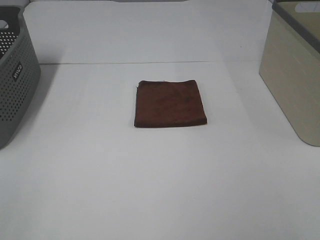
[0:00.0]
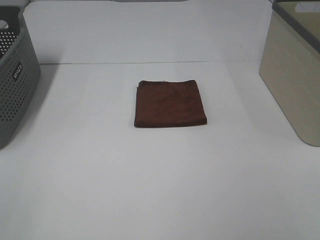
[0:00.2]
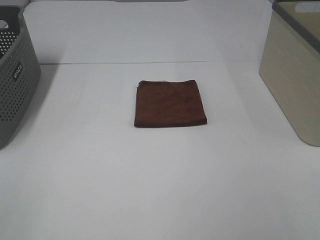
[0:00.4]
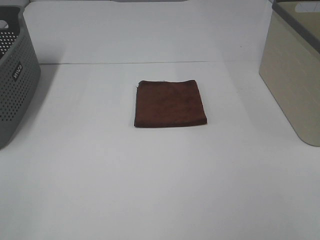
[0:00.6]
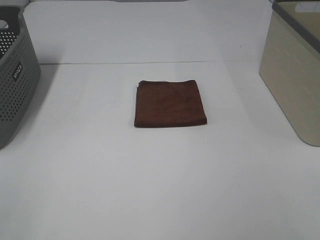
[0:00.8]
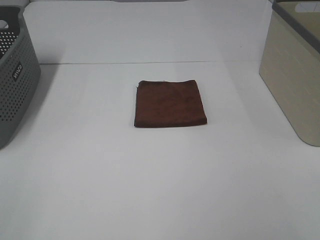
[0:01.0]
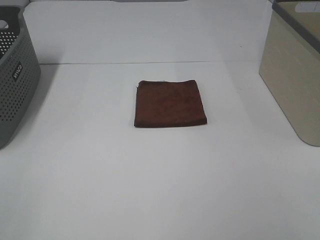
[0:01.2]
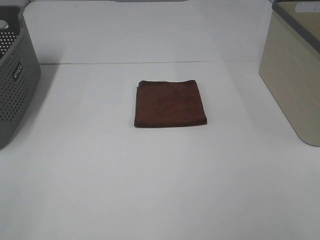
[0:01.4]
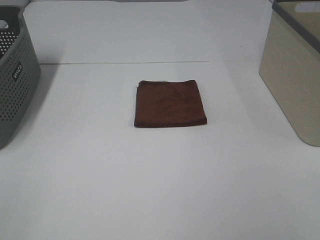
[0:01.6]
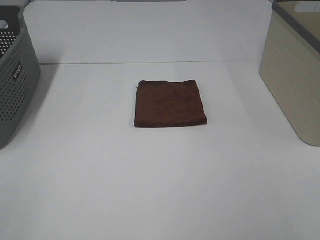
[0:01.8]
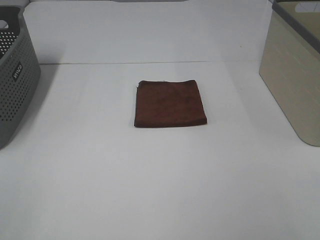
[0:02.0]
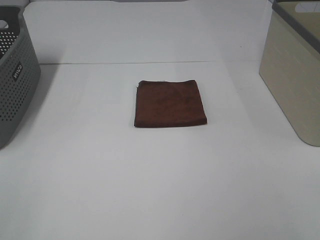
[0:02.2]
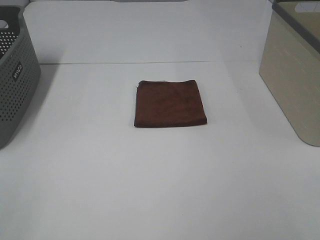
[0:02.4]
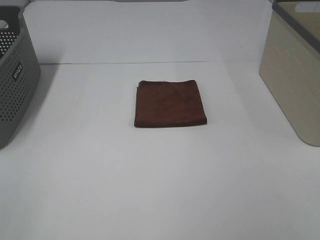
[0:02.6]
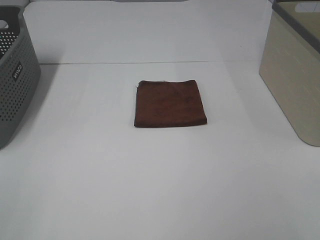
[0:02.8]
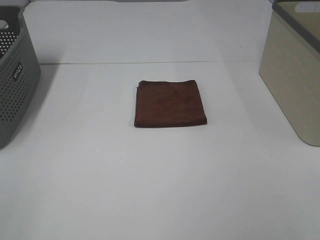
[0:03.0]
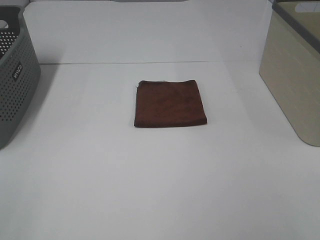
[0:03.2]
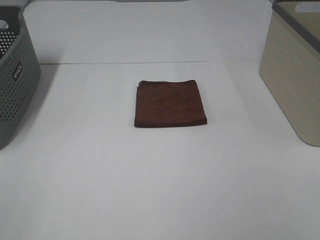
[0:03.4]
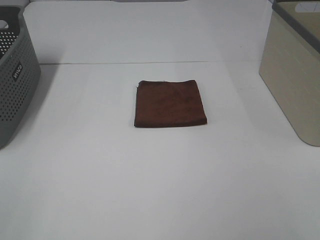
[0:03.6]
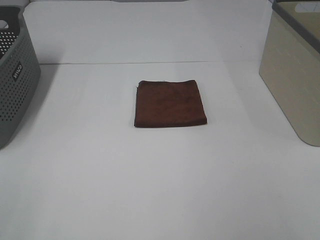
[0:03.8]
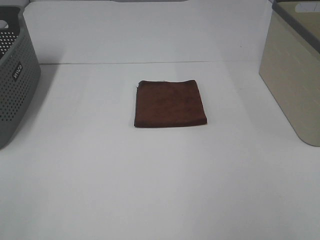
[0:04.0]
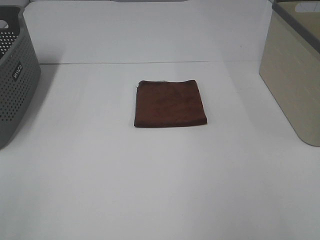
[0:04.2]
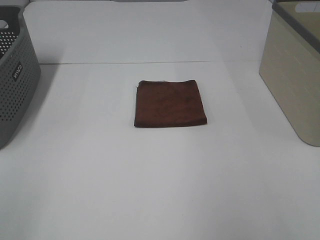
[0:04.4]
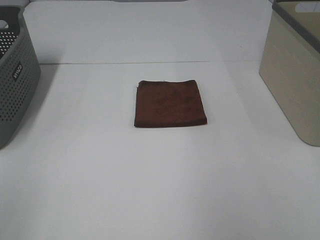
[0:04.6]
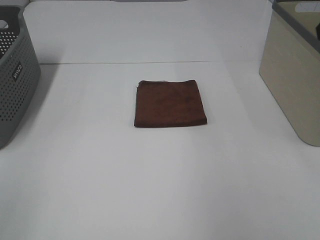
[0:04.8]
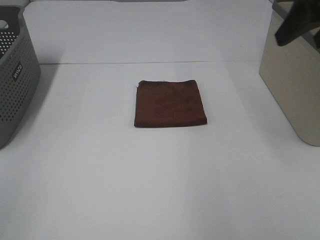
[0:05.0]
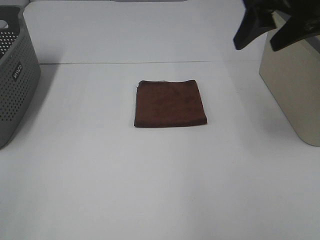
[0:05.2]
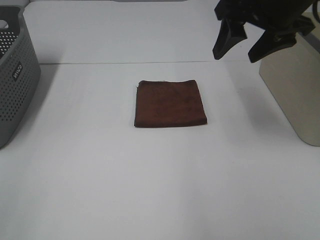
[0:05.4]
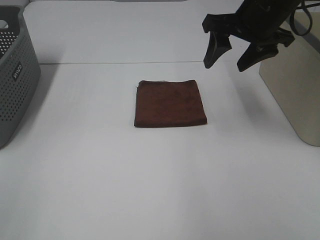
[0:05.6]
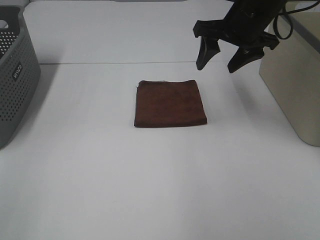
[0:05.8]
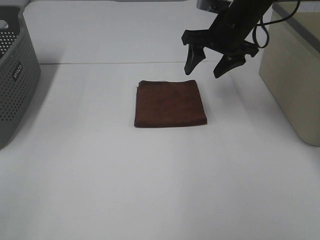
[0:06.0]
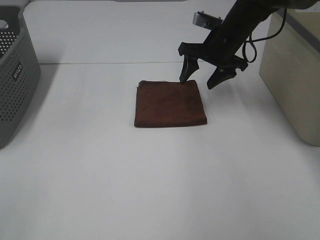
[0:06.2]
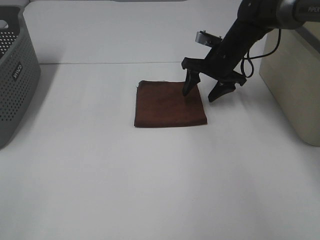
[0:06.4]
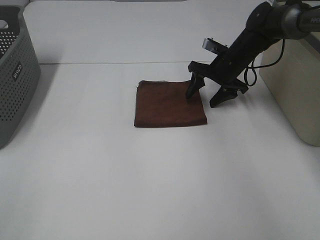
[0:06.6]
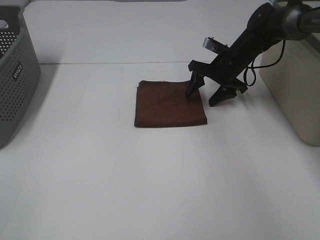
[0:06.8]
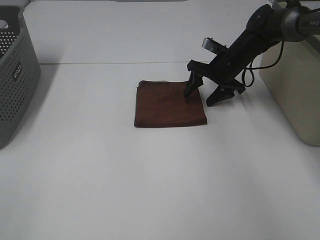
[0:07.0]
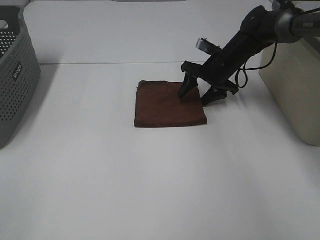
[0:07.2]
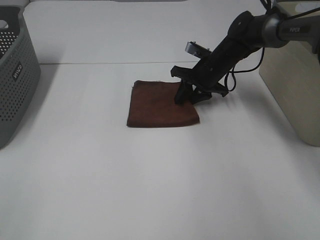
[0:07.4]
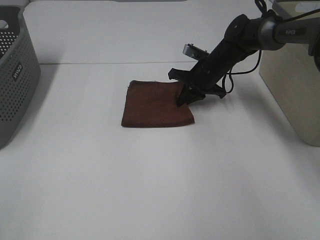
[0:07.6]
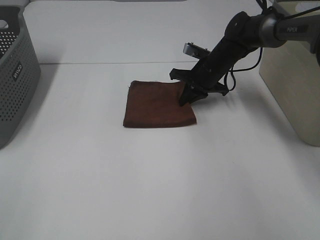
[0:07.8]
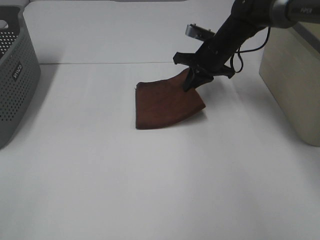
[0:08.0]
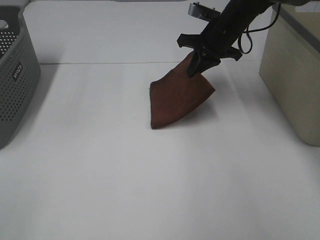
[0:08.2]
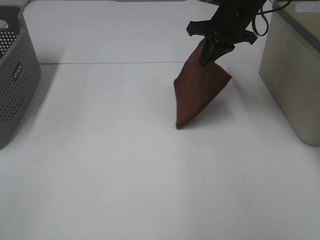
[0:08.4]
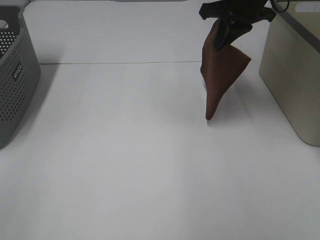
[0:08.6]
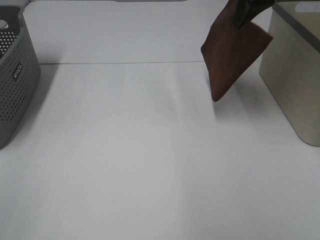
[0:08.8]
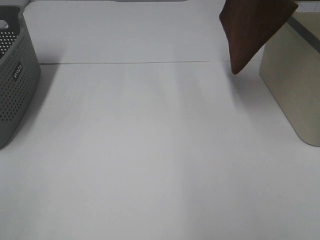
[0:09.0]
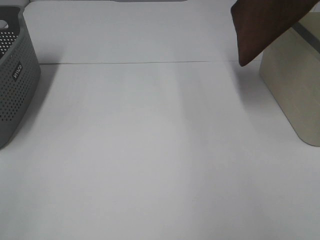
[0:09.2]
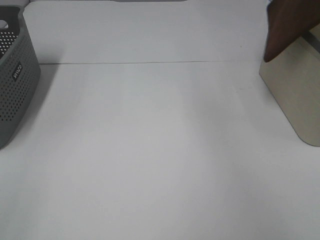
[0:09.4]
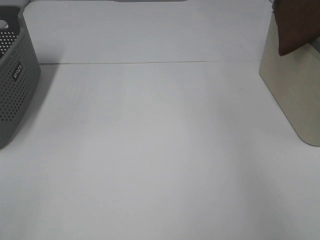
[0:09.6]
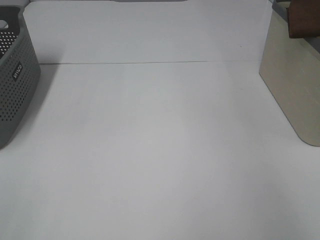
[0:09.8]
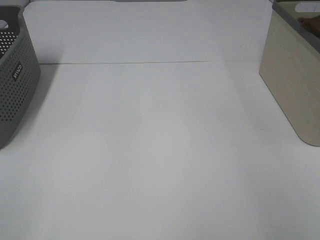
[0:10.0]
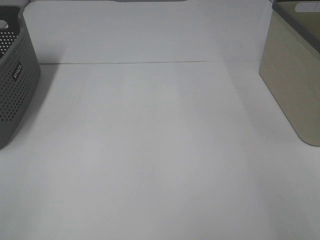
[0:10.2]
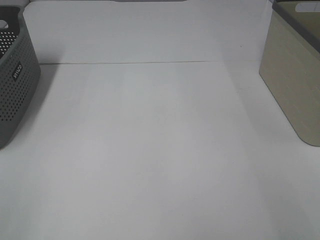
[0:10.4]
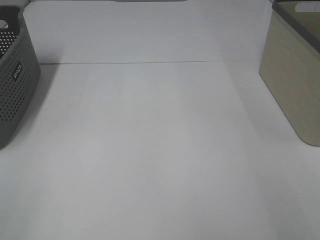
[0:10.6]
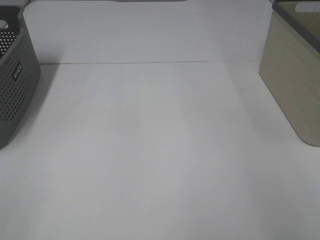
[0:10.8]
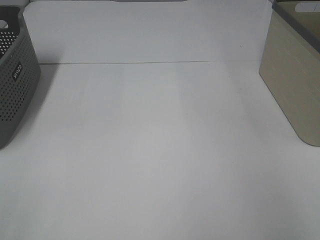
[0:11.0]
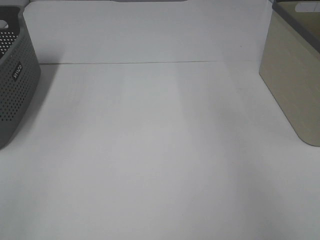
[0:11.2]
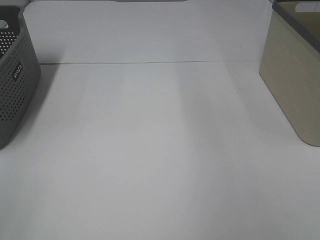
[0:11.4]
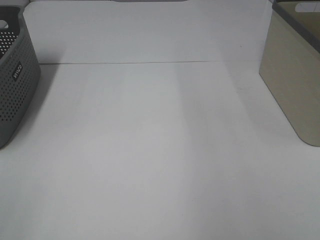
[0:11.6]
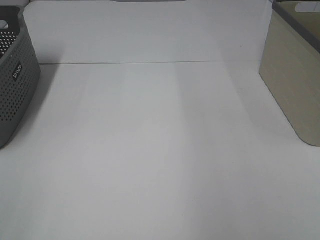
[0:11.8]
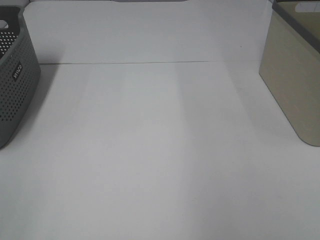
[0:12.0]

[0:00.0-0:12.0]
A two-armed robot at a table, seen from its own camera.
Step, 0:00.0 to 0:07.6: Right hand: grab the folded brown towel.
Step, 0:07.8 to 0:10.6: Right hand: place the brown towel in right basket.
0:00.0 to 0:03.0: Both grippers stay put.
0:04.4 to 0:06.0: The right gripper is displaced forward, downward and to the left by approximately 35 cm.
0:06.0 to 0:07.6: The right gripper goes some 15 cm downward, and closes.
0:07.6 to 0:09.0: The right gripper is displaced upward by about 30 cm.
0:09.0 to 0:10.4: The right gripper moves to the right and downward, about 30 cm, and opens up.

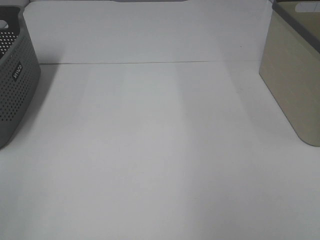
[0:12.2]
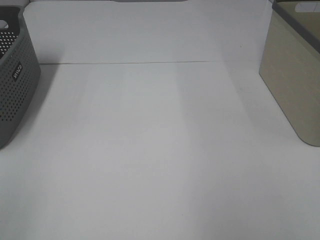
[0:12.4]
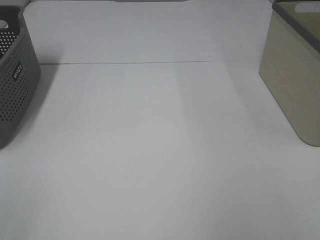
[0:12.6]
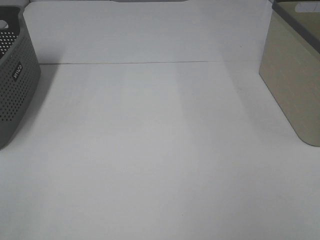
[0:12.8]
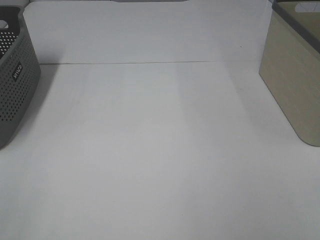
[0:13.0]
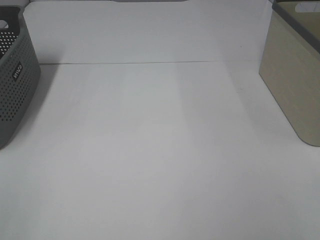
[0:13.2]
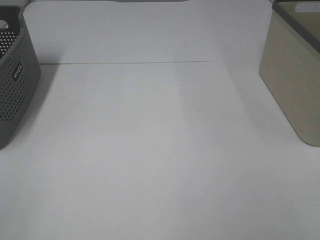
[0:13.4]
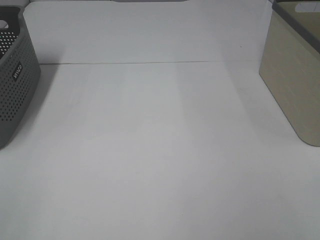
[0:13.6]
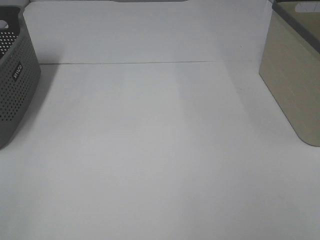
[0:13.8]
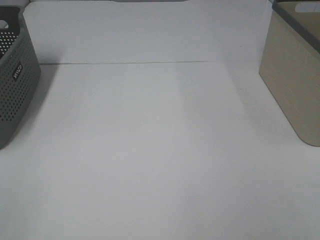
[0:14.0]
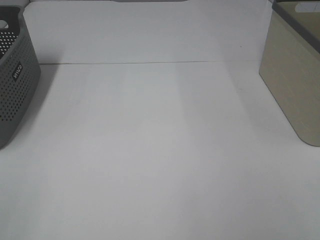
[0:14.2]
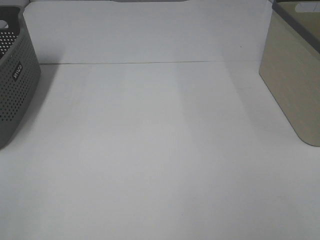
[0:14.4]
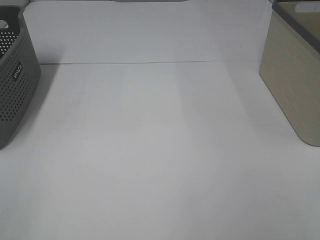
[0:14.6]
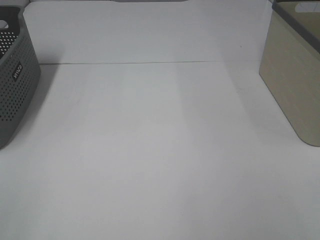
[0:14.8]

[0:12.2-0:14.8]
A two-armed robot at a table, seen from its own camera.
0:13.4 to 0:14.8: The two grippers keep their place.

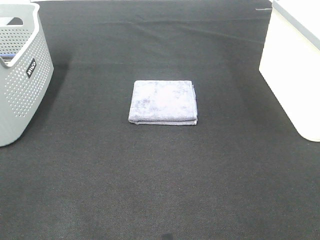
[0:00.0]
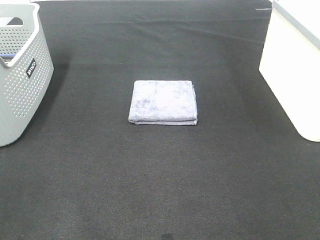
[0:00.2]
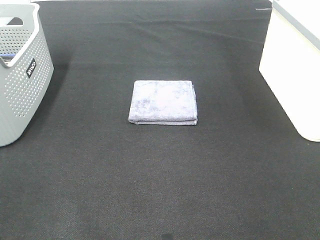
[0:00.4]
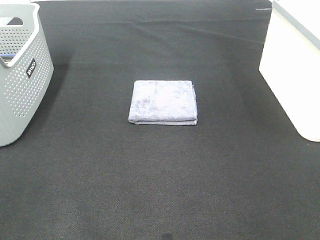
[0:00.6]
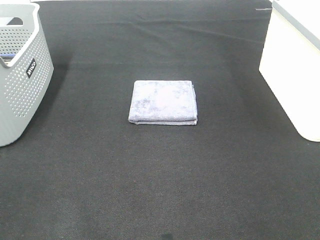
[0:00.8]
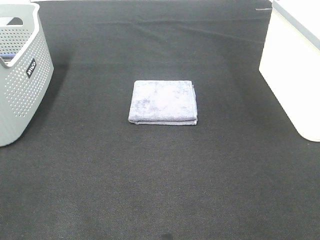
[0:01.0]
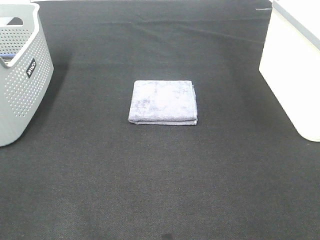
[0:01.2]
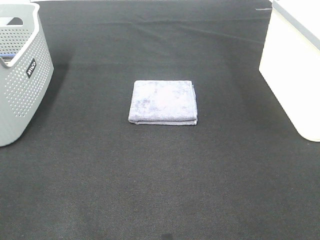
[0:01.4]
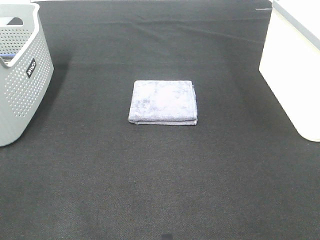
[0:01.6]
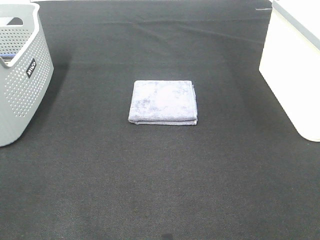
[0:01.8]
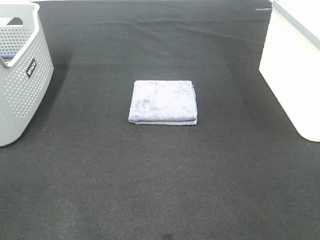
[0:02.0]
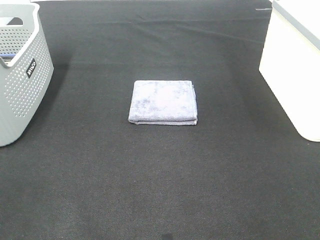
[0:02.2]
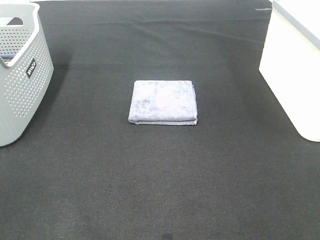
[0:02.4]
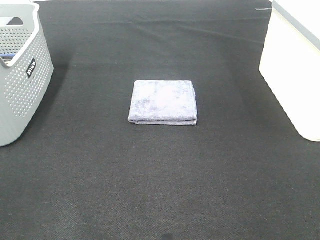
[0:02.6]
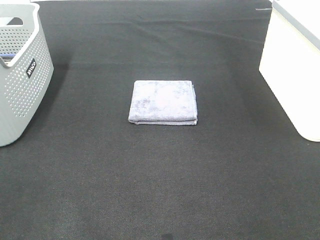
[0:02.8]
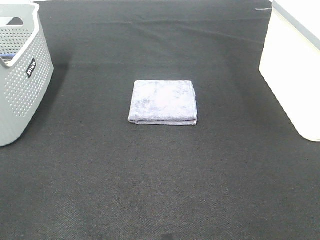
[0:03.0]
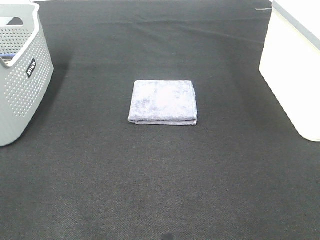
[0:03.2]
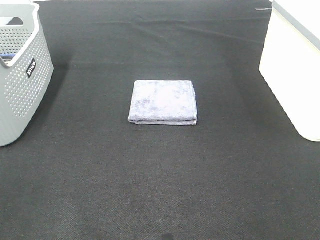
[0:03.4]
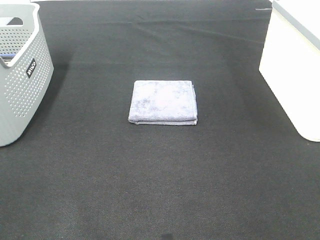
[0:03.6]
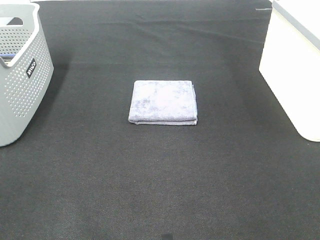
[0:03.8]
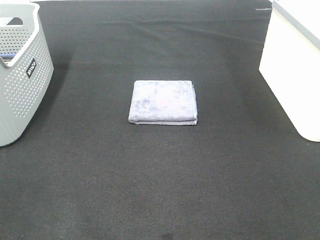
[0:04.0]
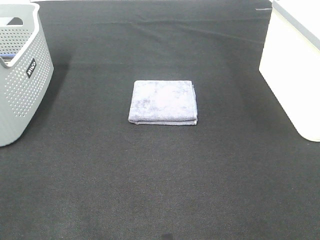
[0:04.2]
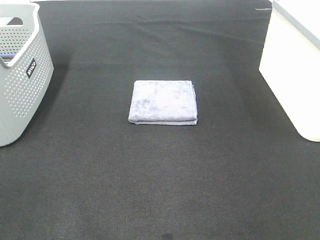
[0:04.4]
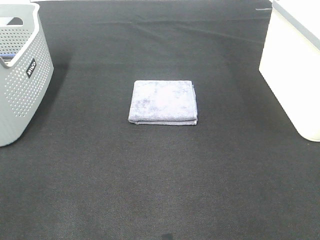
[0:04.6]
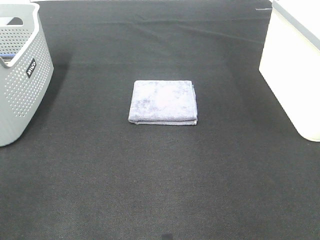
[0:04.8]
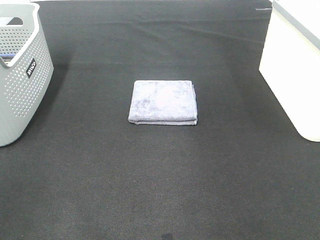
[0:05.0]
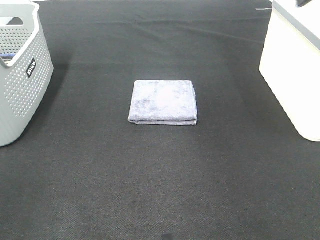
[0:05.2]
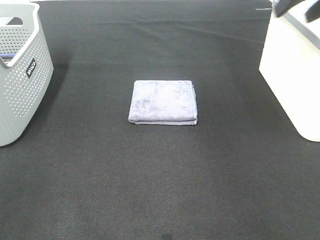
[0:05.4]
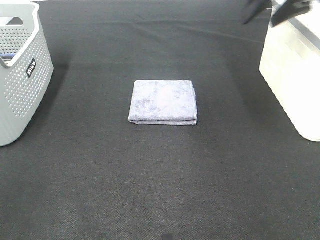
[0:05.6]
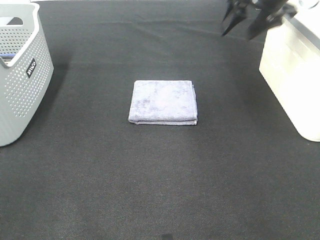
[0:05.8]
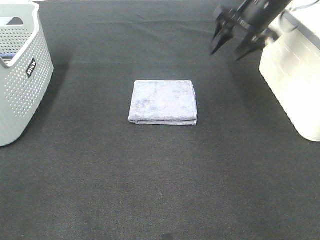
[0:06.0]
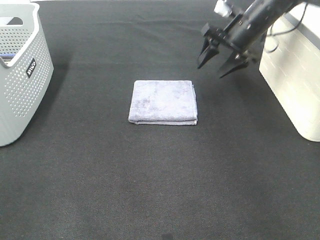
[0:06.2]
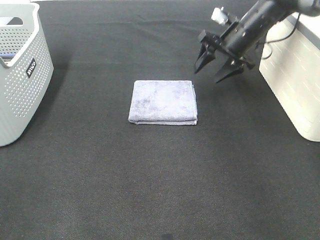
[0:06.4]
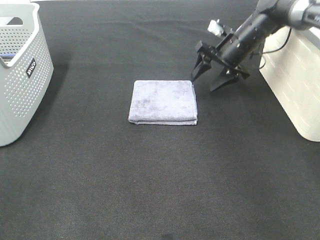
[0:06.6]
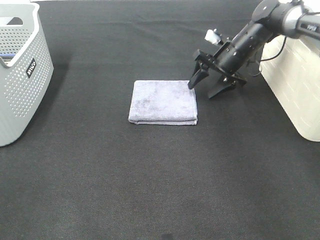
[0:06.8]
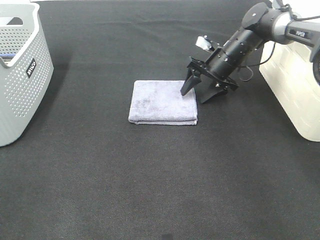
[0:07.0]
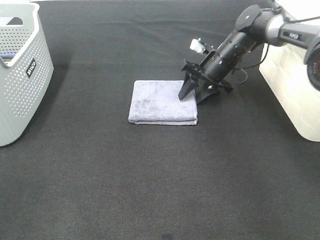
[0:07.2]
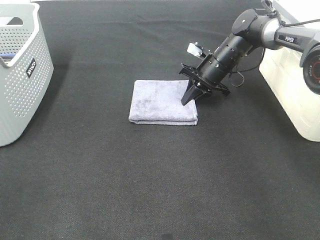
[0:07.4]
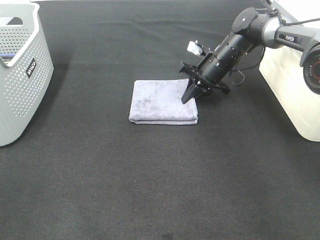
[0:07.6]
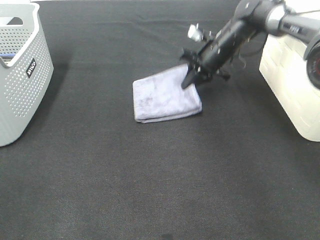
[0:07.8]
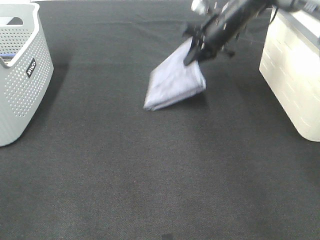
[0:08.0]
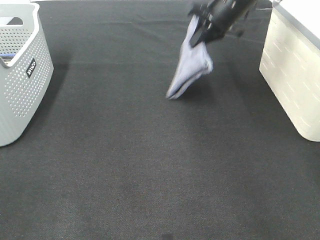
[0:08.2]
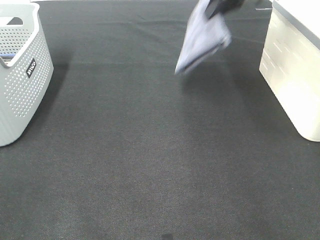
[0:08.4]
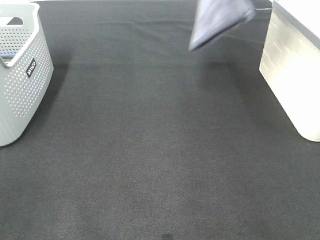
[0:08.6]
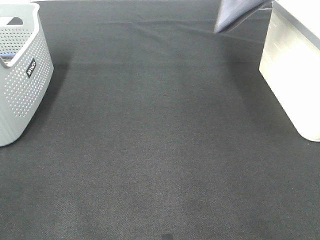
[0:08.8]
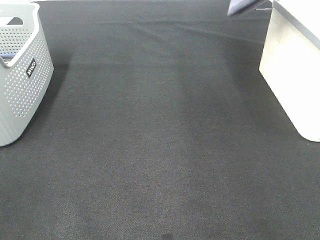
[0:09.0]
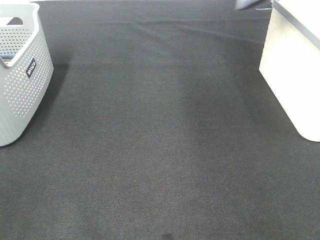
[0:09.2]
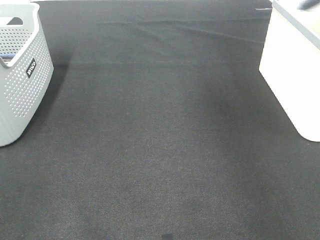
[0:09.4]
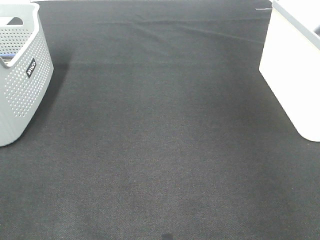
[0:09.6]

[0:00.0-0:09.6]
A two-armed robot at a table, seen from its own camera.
Step, 0:00.0 to 0:07.4: Right hand: grab the folded grey towel.
0:00.0 to 0:03.2: Neither gripper changes place.
0:04.8 to 0:06.4: The right gripper goes about 35 cm forward and downward.
0:06.4 to 0:08.0: The right gripper ends up about 5 cm from where it was, and closes up.
0:08.0 to 0:09.6: The right gripper travels to the right and upward by roughly 30 cm.
